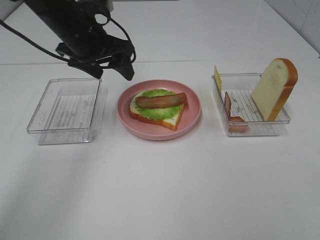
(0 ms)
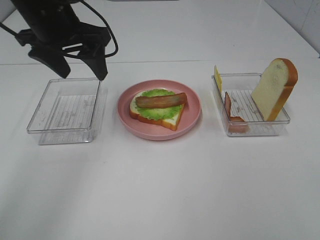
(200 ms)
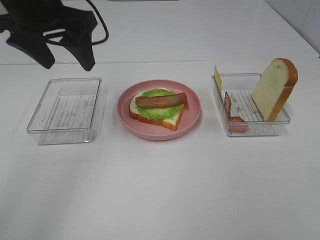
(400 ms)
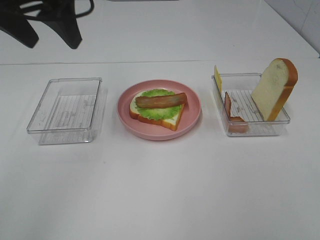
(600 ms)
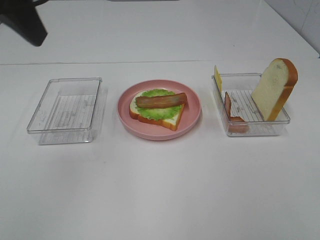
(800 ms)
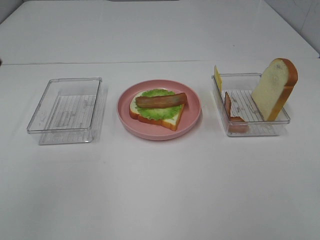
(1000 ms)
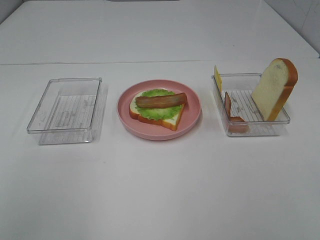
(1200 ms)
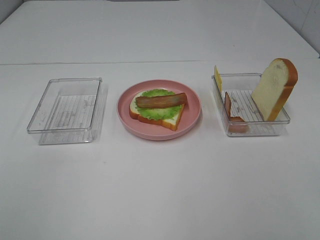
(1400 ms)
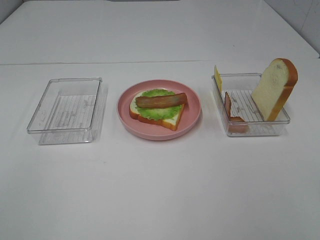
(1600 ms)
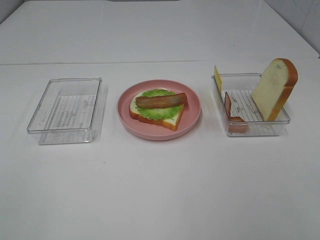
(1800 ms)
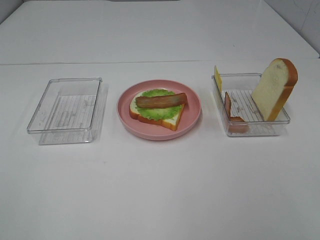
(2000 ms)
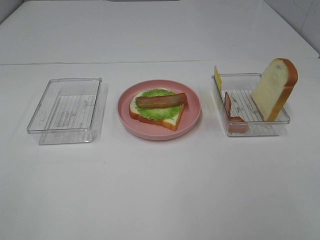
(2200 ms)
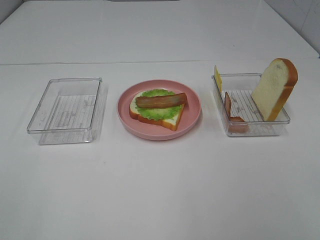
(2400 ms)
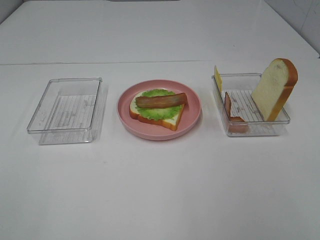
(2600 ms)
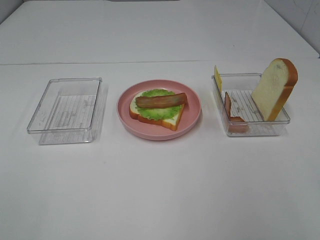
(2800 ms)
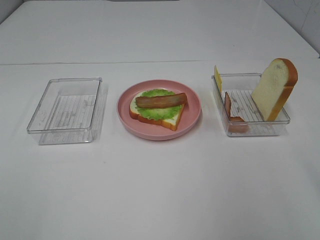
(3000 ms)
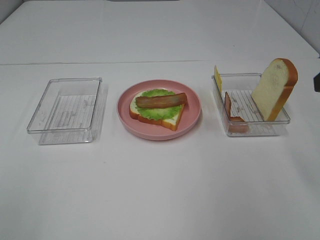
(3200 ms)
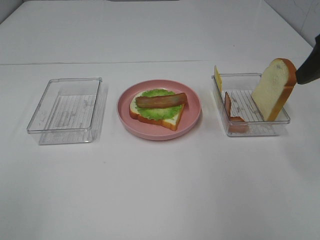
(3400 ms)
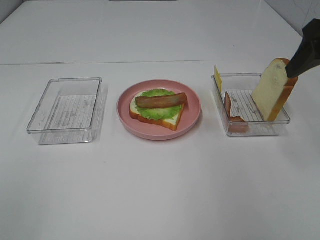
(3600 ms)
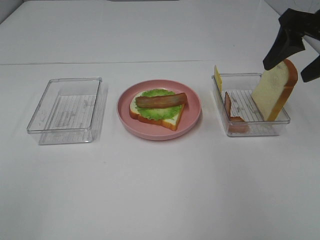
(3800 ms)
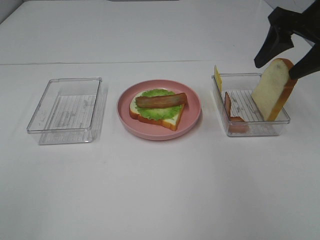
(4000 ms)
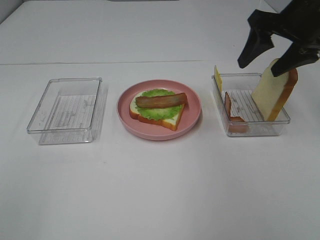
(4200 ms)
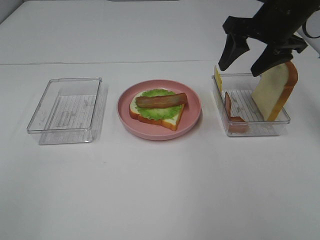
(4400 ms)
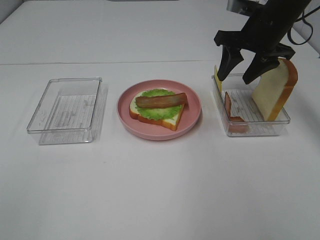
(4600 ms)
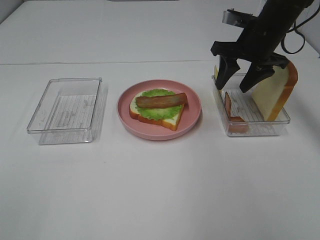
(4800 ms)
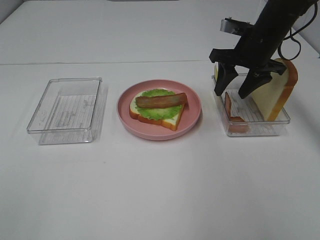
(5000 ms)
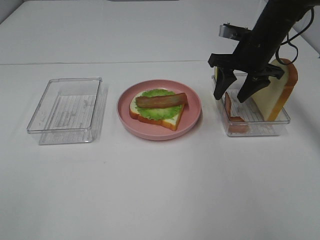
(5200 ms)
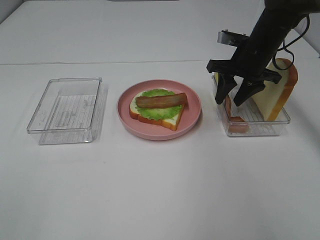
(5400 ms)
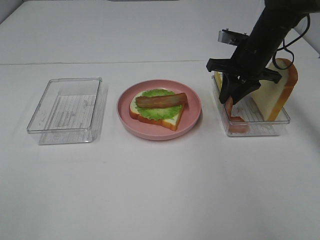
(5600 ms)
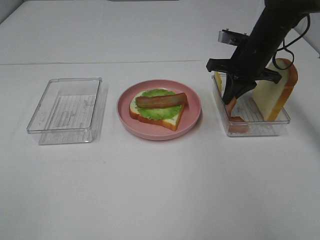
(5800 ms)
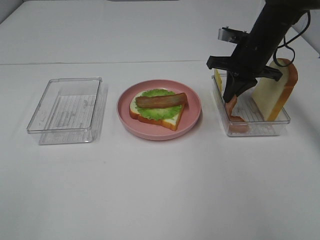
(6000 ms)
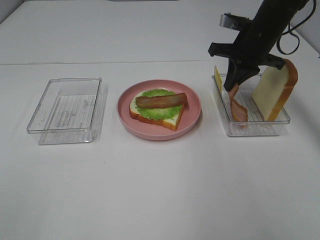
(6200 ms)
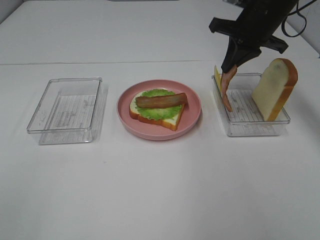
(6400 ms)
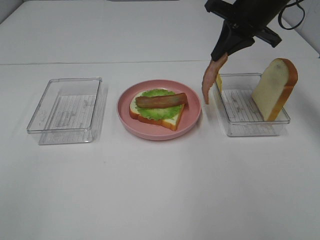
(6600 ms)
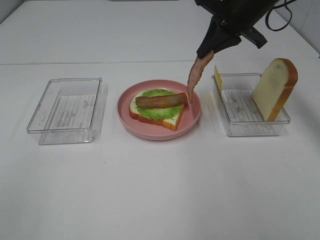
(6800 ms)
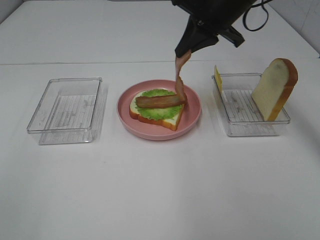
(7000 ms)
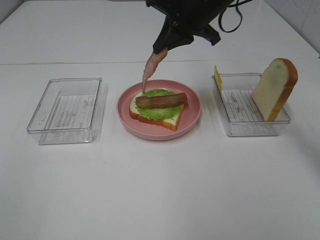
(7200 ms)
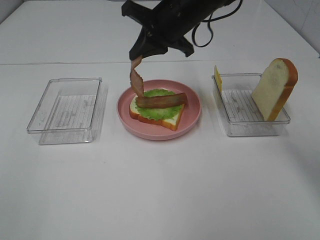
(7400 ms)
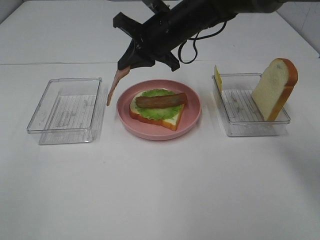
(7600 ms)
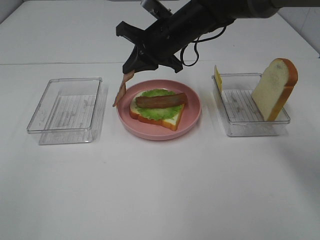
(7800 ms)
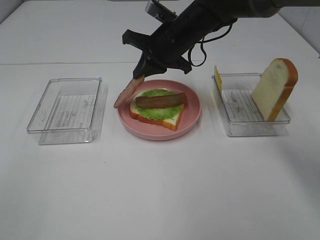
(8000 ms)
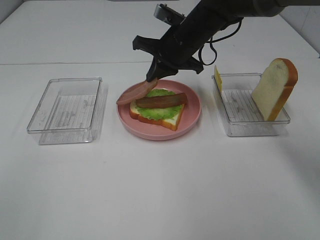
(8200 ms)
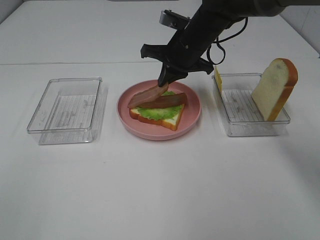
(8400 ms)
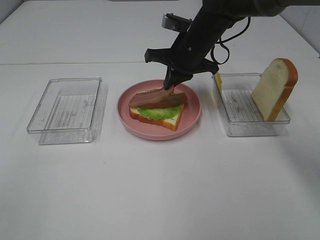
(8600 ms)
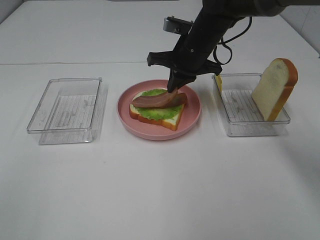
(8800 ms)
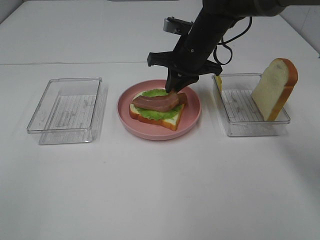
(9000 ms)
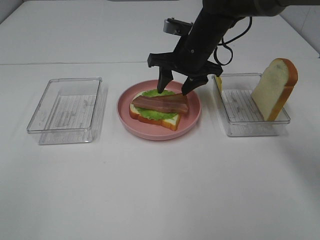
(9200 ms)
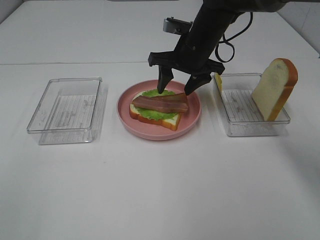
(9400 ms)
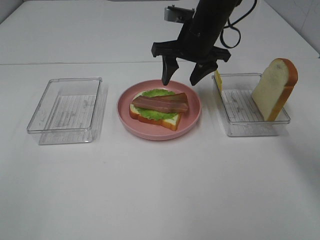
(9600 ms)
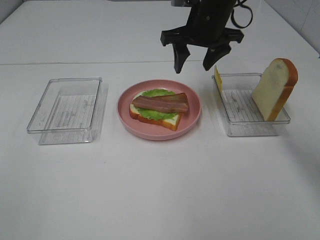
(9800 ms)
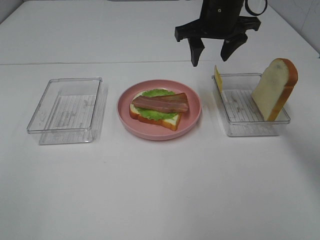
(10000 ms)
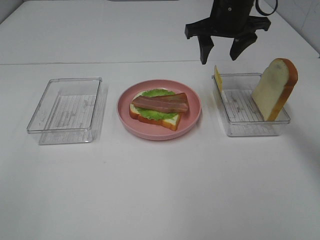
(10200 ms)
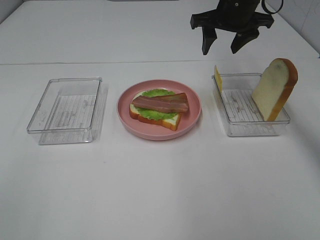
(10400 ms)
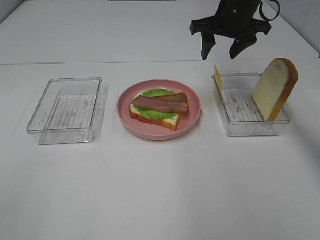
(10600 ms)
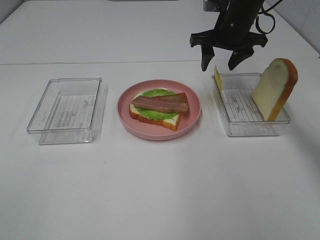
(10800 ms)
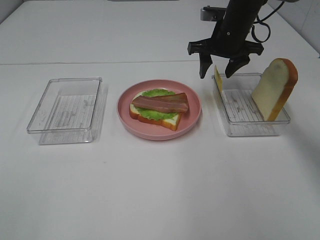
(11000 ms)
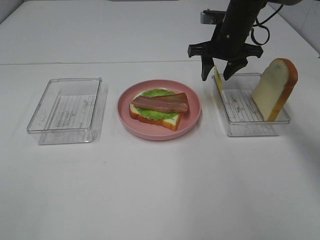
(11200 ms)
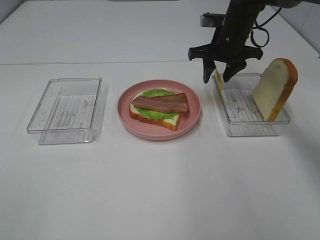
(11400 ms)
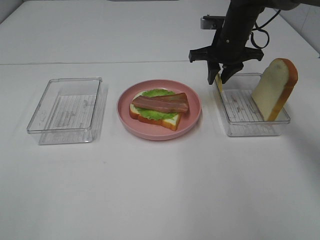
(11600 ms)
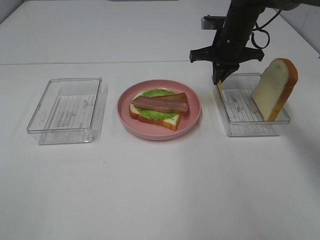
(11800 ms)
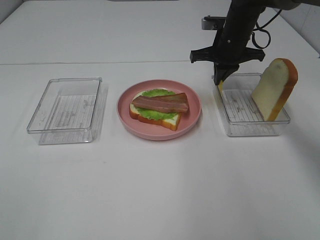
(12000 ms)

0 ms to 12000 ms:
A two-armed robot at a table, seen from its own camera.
Task of the whole recording: Make sandwiches.
Step, 0 ms to 5800 ms: Right hand:grab the bacon.
Step, 6000 ms to 9400 ms: Right hand:place bacon on bacon.
0 ms to 1600 ms: The left gripper is displaced backward and to the left by about 40 cm.
3000 ms to 4400 ms: The right gripper shifts approximately 25 cm forward.
4400 ms to 6000 ms: The right gripper goes some 10 cm downward, and closes up.
6000 ms to 7600 ms: The right gripper is displaced to the left by roughly 15 cm.
7600 ms to 9000 ms: The right gripper moves approximately 5 cm.
9000 ms to 10400 ms: The right gripper moves upward and to the right, some 10 cm, and opens up.
10400 ms to 12000 ms: The right gripper heads downward, covering approximately 10 cm, and closes up.

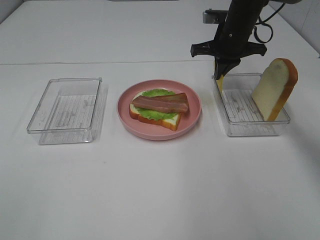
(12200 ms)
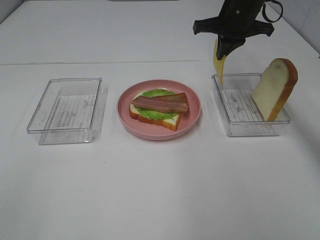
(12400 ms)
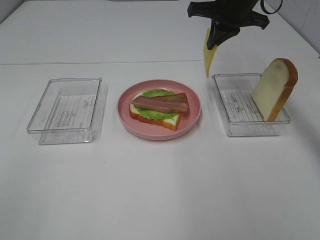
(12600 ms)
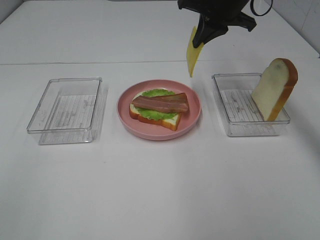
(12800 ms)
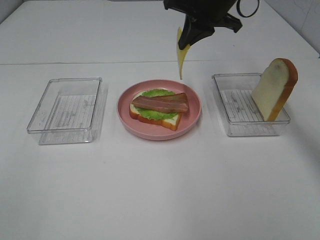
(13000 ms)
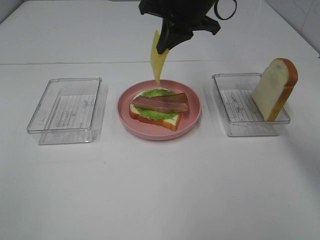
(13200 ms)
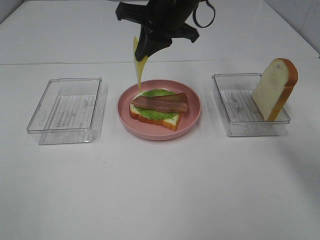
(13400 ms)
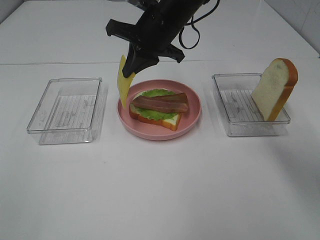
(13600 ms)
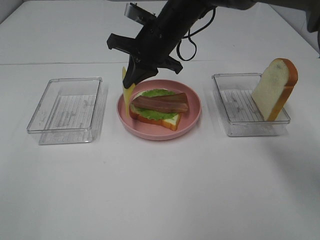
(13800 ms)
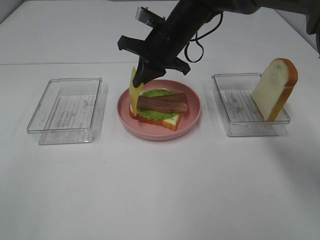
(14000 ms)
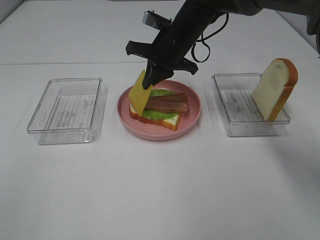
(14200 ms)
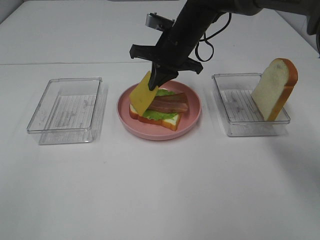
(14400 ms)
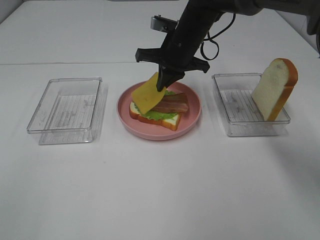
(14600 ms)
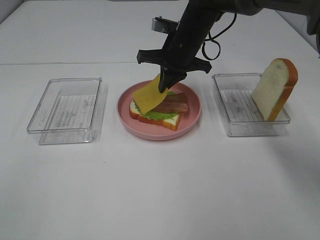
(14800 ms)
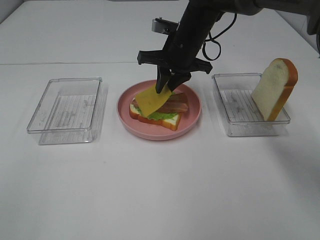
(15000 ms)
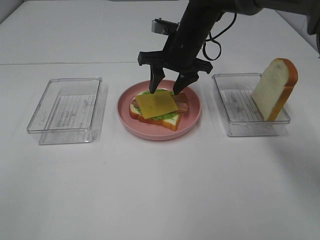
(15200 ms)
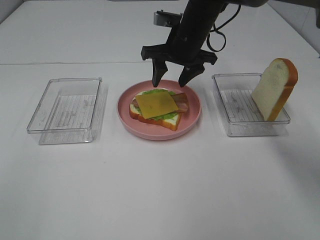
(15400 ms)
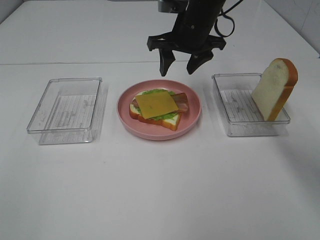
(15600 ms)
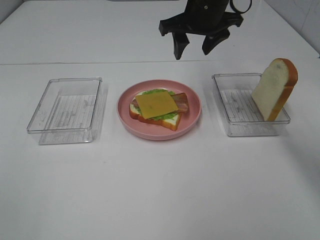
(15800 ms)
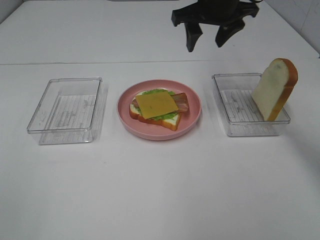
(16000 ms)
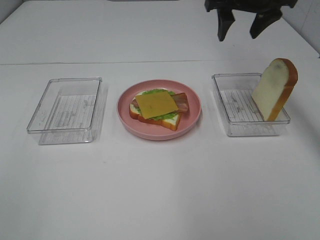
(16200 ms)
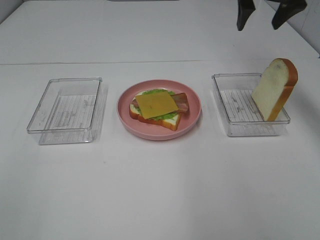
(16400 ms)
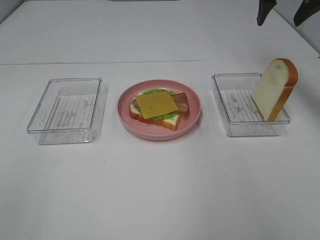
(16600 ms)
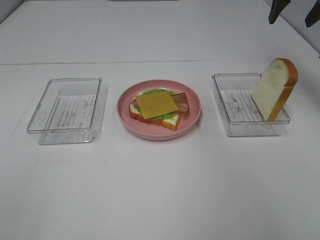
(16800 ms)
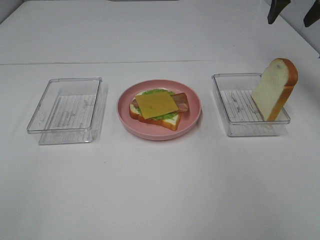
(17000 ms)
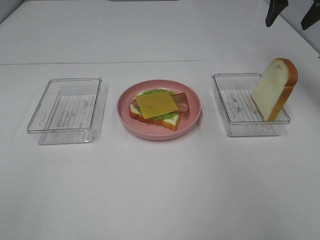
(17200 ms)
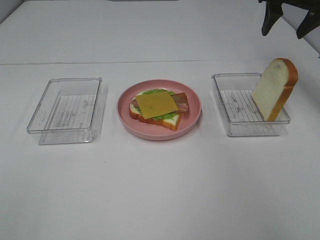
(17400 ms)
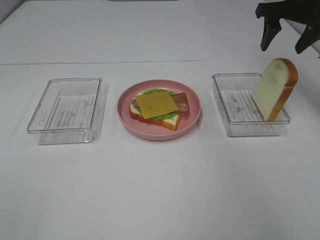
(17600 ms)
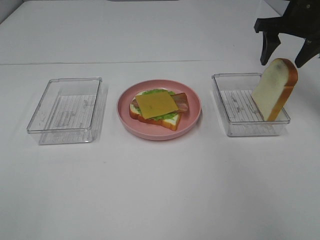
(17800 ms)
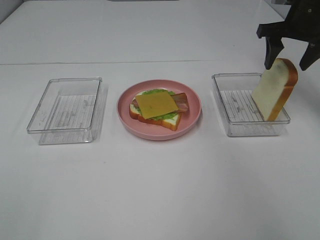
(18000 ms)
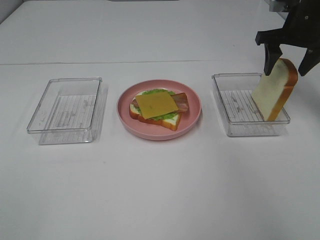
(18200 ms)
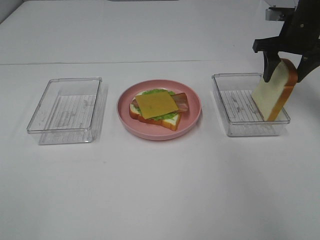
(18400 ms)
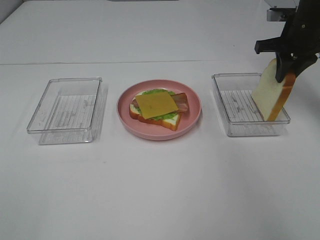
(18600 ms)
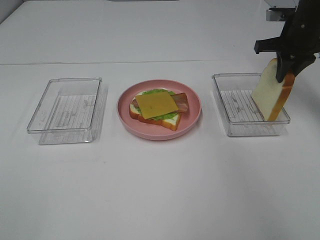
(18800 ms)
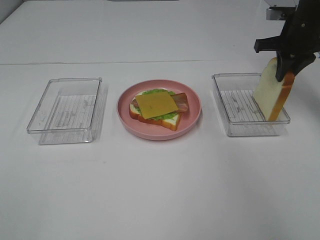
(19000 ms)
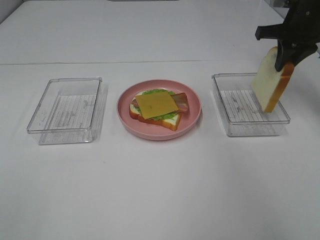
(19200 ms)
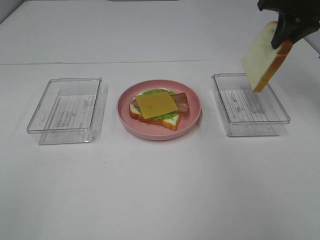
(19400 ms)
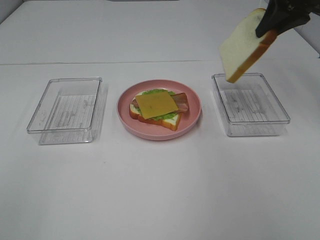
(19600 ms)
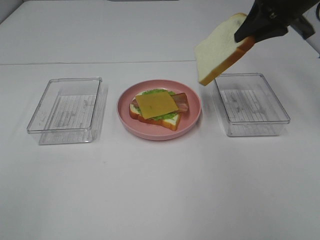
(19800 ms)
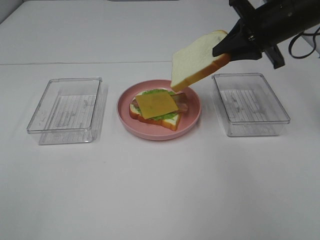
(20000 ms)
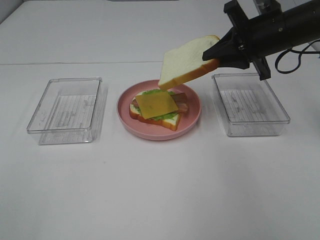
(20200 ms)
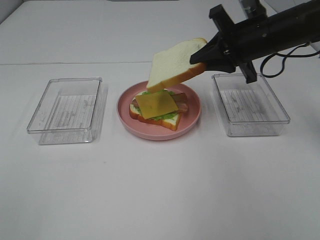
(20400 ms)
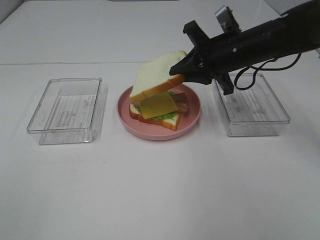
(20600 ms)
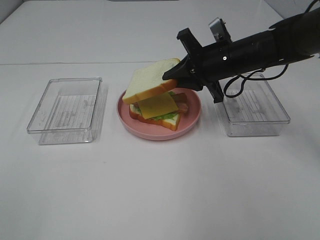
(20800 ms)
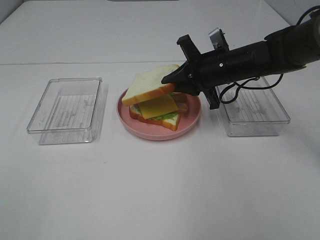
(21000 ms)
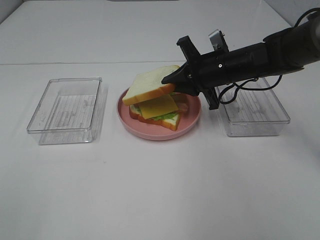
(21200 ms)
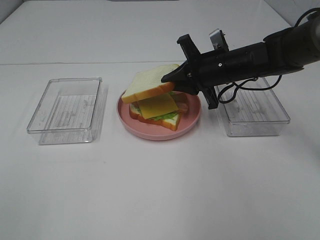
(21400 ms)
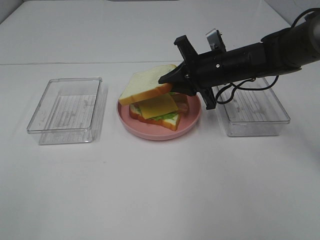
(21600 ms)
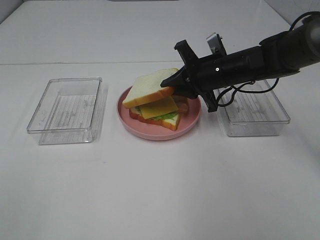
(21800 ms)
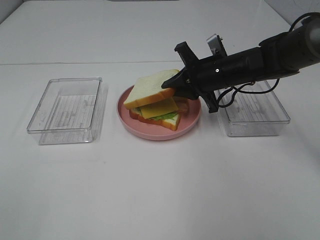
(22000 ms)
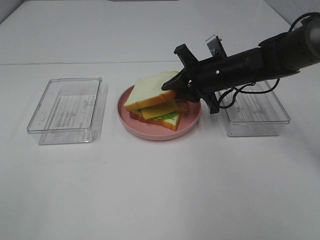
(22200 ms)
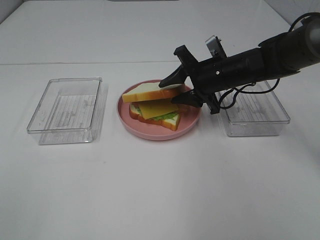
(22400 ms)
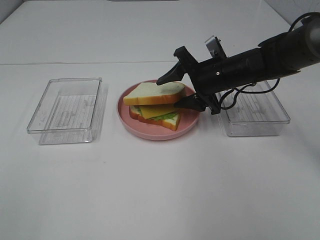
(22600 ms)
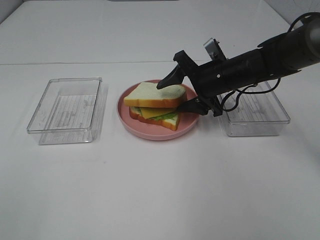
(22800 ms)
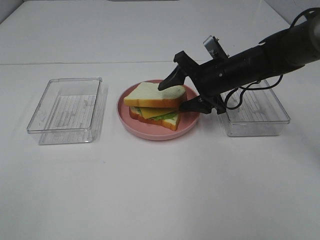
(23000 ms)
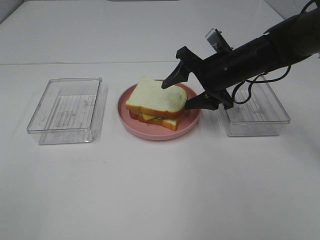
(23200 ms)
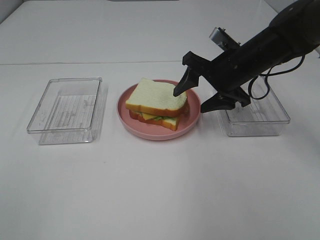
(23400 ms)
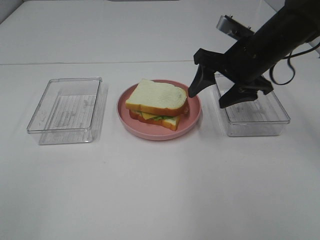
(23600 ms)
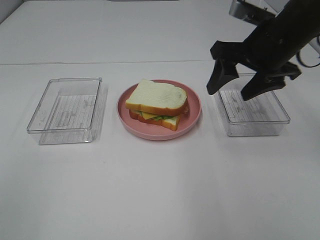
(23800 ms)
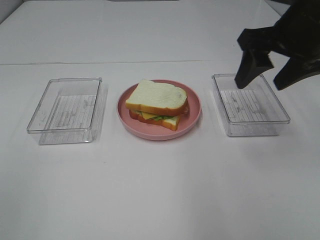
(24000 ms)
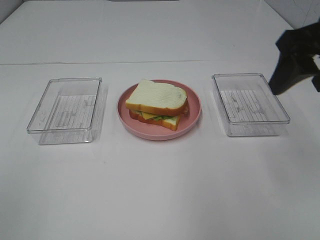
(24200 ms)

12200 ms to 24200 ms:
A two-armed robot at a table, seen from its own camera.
Task of the whole recording: Make sandwiches.
Step, 12400 ms to 15400 ms: Right hand:place the cheese slice on top of the bacon.
Step, 15600 ms to 19000 ms: Right hand:grab the bread slice.
Step, 19200 ms to 23200 ms: Right hand:place the bread slice on the cheese slice.
12200 ms to 13800 ms: The right gripper heads to the left and backward, covering approximately 15 cm.
13800 ms to 15200 ms: The right gripper opens its fingers.
15200 ms to 16600 ms: The right gripper goes about 25 cm to the right and upward.
16600 ms to 18200 ms: The right gripper moves downward, approximately 10 cm.
18200 ms to 19800 ms: The right gripper travels upward and backward by some 10 cm, and closes.
19800 ms to 21200 ms: The right gripper travels downward and to the left by some 15 cm.
21200 ms to 22600 ms: The right gripper opens its fingers.
22600 ms to 24200 ms: The right gripper travels upward, backward and to the right by approximately 25 cm.
